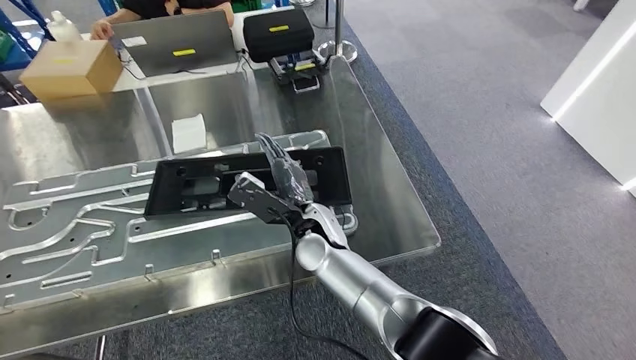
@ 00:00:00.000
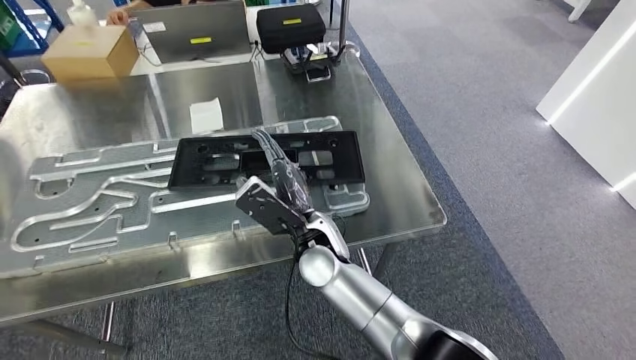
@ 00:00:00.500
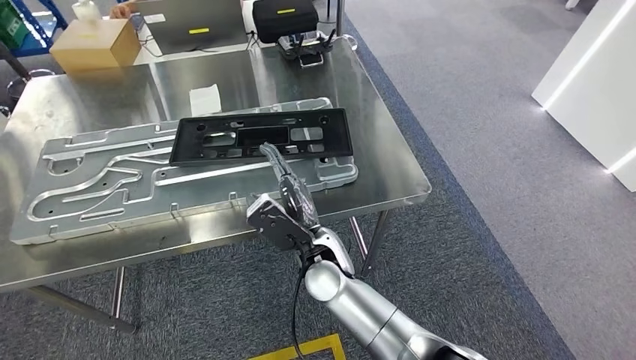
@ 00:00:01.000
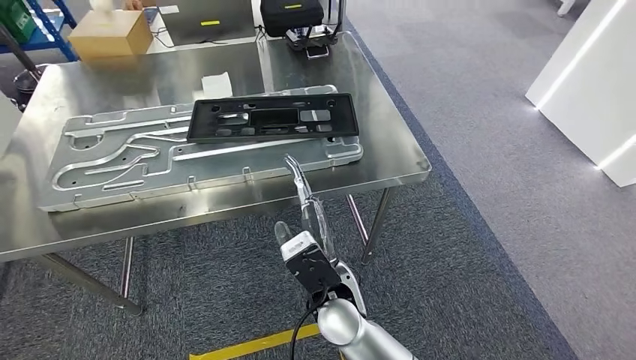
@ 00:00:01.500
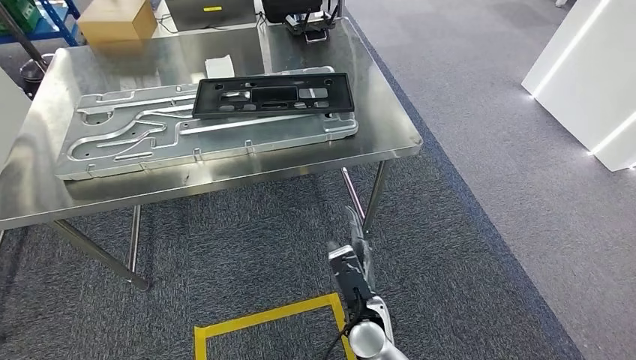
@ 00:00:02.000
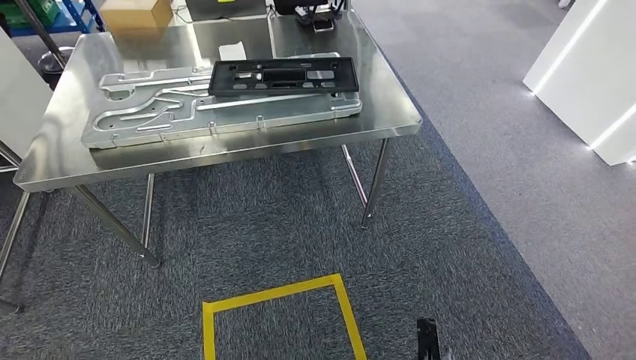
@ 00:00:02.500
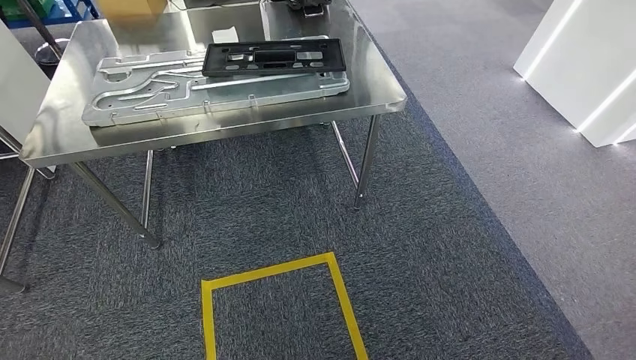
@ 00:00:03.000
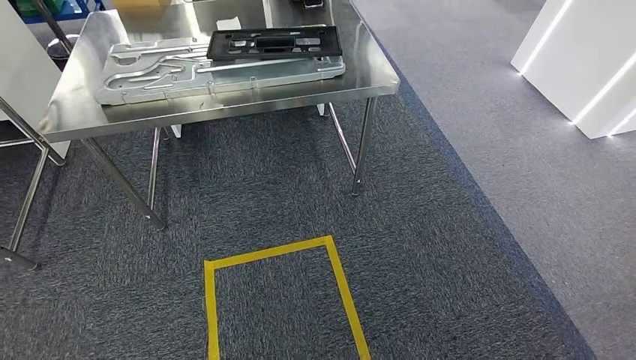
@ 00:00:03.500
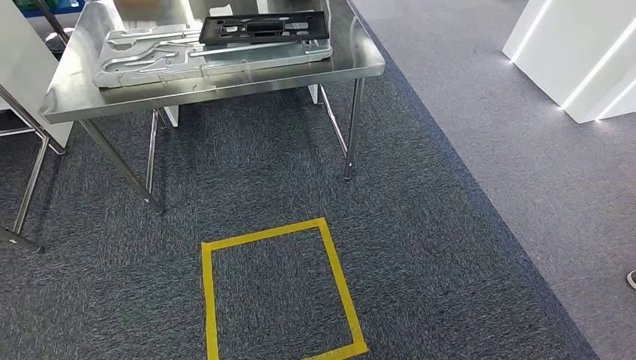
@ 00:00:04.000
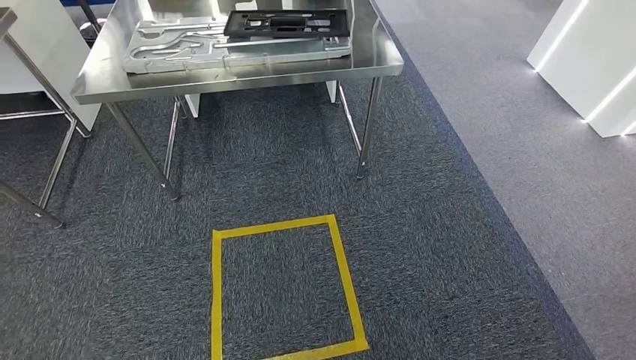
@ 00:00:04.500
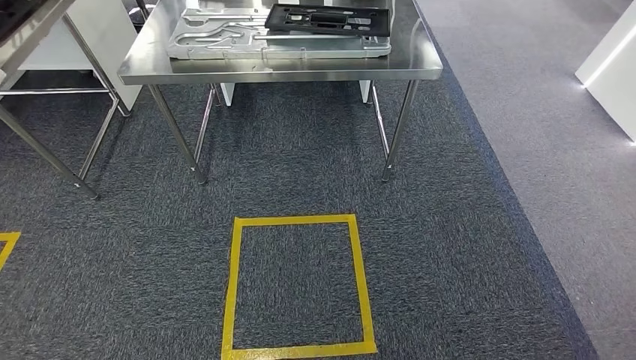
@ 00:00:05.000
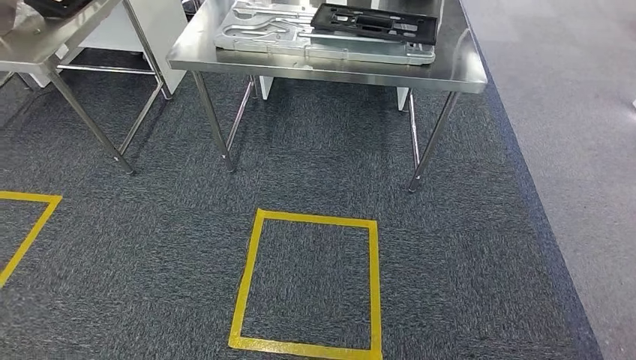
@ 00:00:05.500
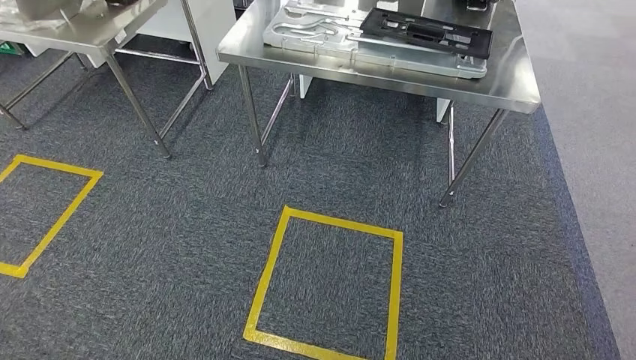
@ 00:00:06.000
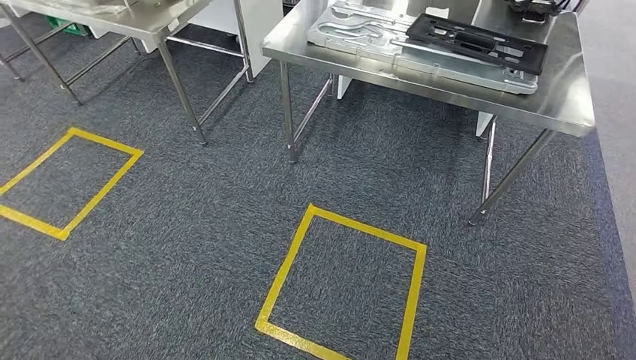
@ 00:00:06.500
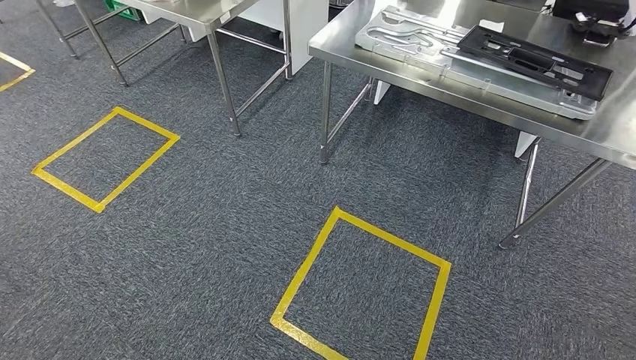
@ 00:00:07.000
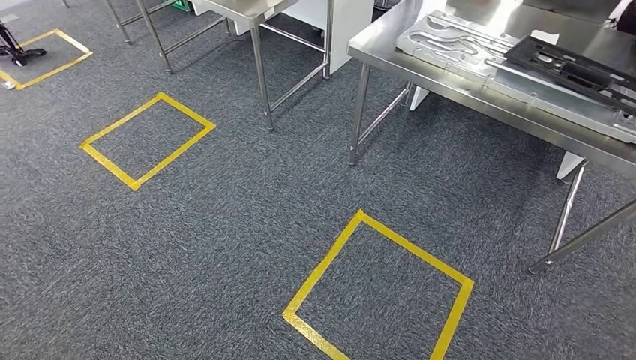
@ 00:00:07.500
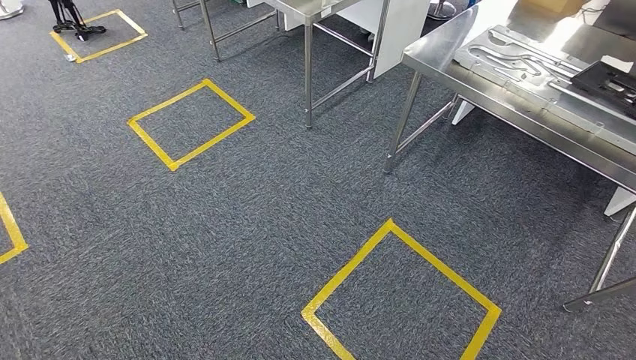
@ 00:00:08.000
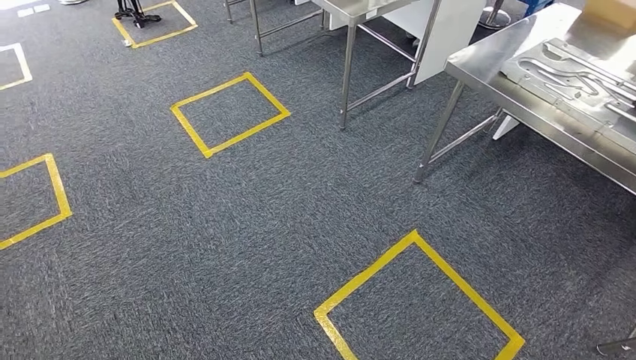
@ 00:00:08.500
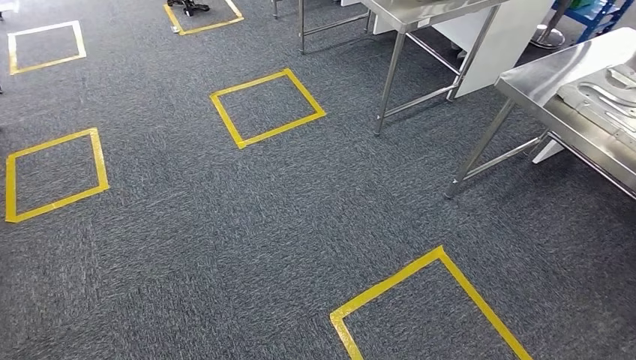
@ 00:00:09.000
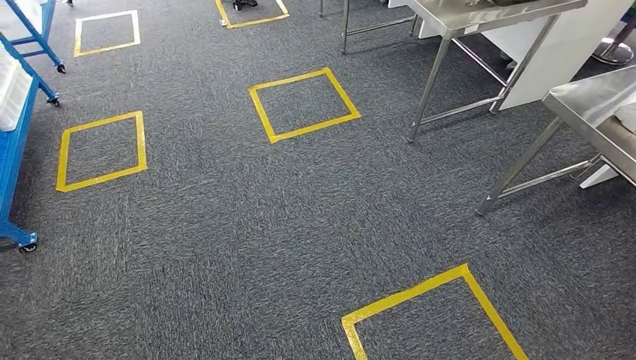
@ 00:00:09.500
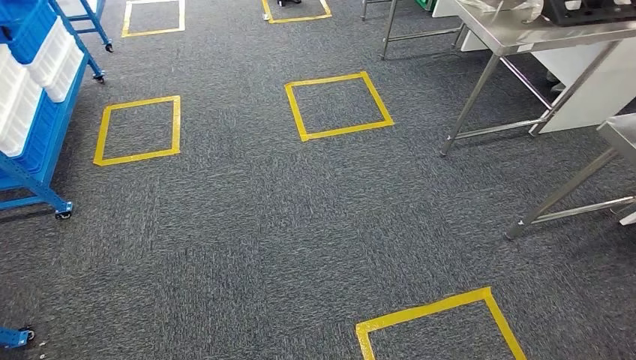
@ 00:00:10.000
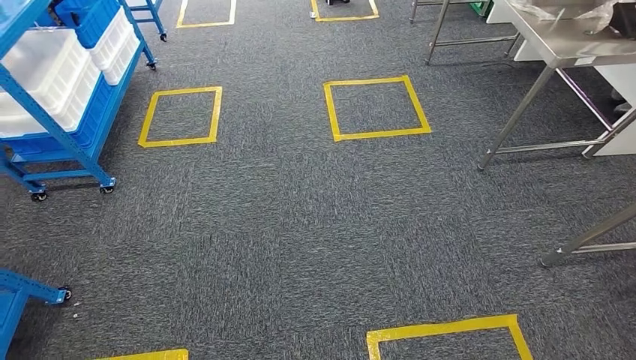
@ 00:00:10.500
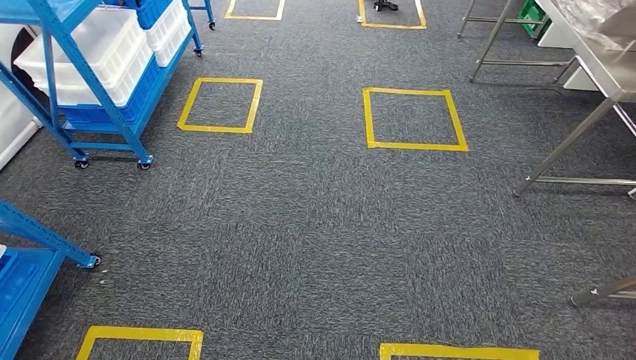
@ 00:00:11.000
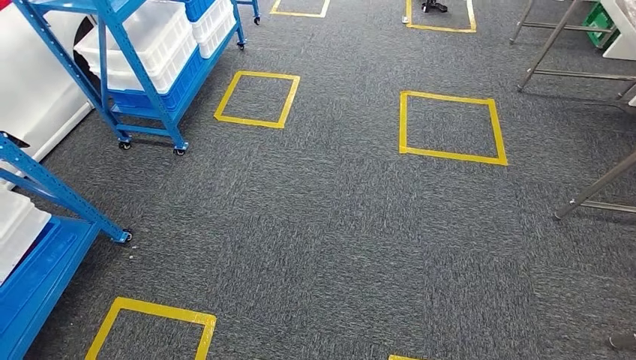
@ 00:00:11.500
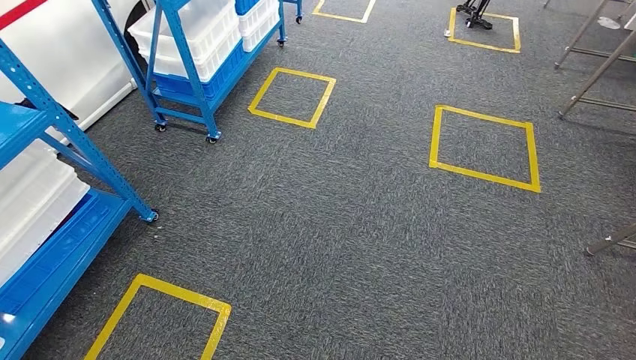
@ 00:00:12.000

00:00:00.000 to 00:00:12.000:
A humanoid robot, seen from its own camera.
Step, 00:00:00.000 to 00:00:02.500: Insert the large material into the corresponding slot on the workbench.

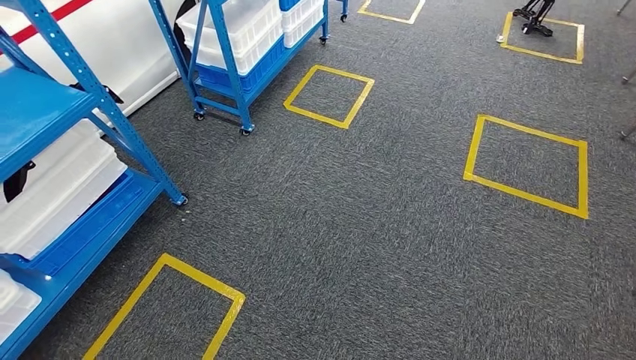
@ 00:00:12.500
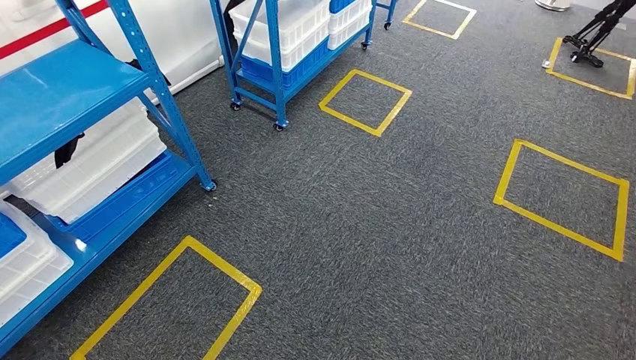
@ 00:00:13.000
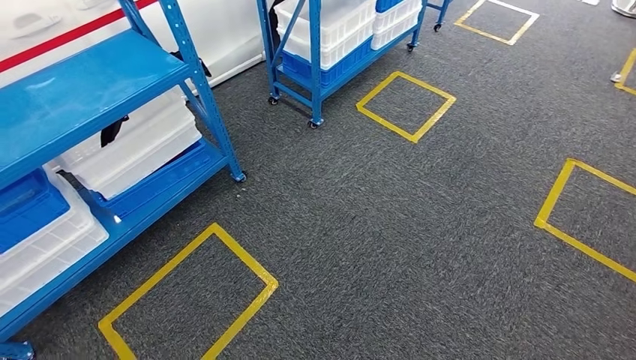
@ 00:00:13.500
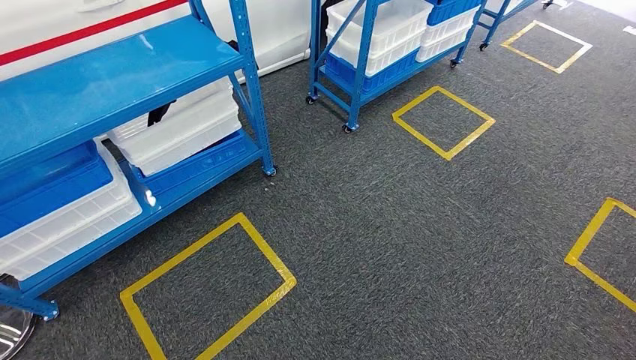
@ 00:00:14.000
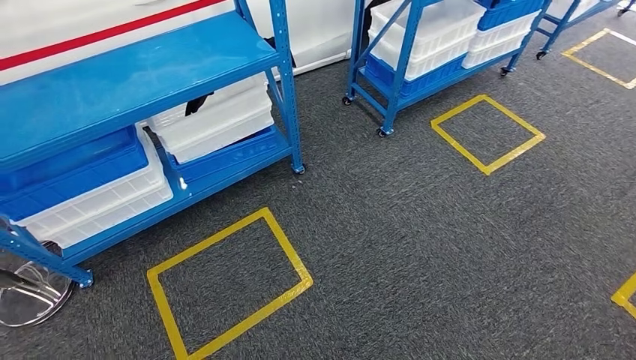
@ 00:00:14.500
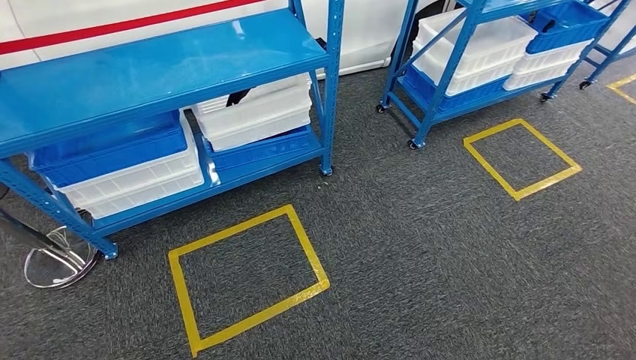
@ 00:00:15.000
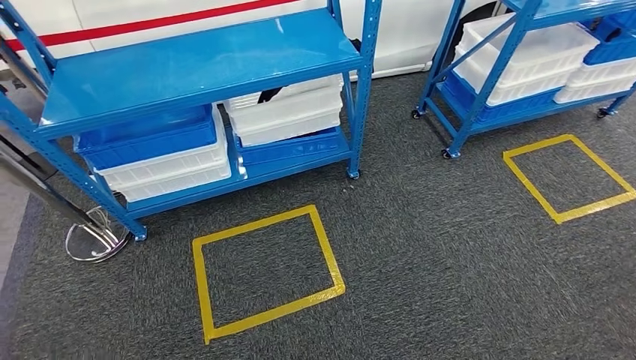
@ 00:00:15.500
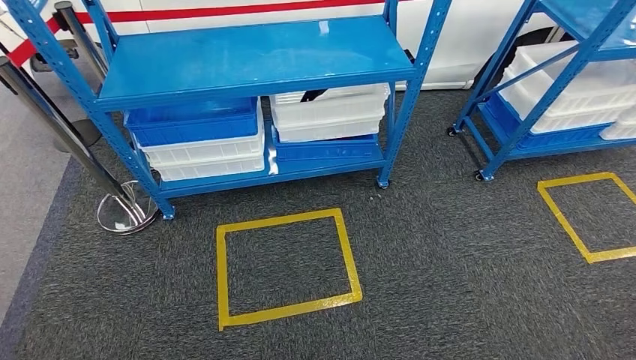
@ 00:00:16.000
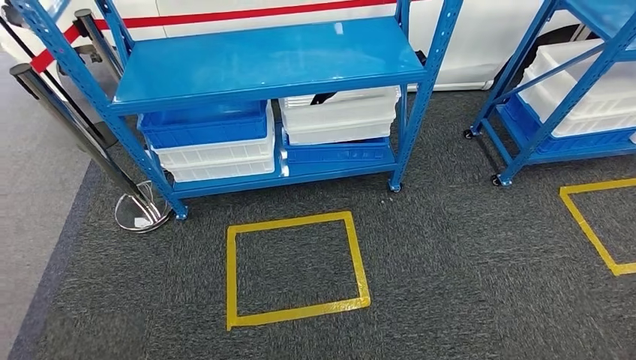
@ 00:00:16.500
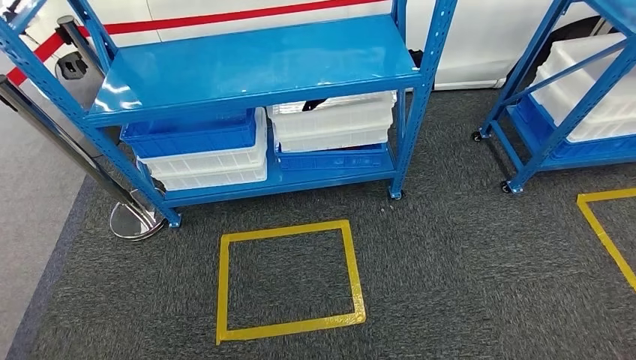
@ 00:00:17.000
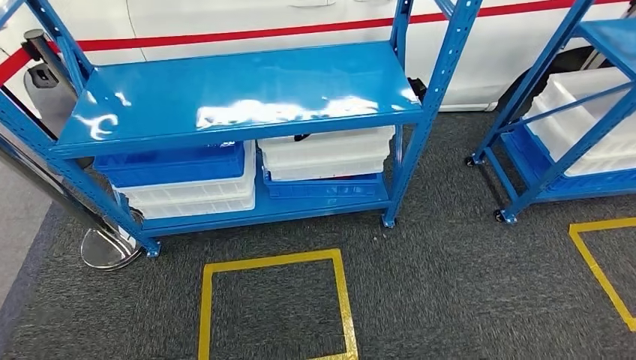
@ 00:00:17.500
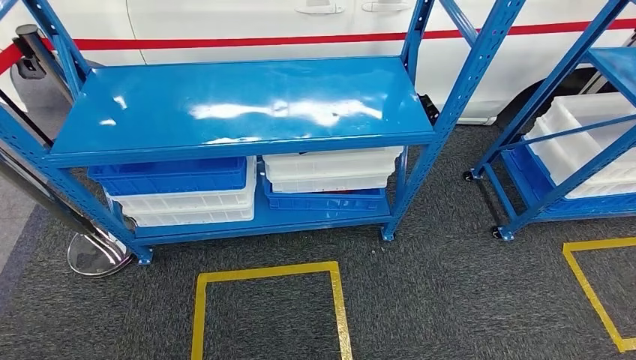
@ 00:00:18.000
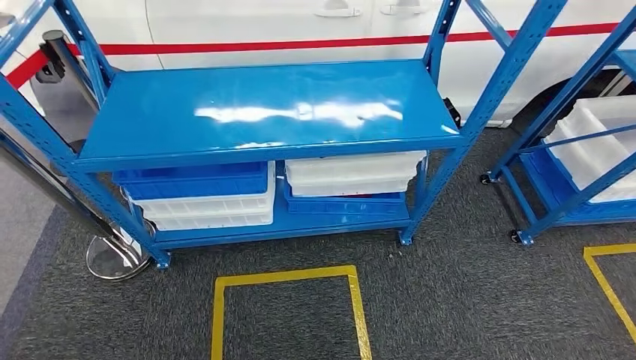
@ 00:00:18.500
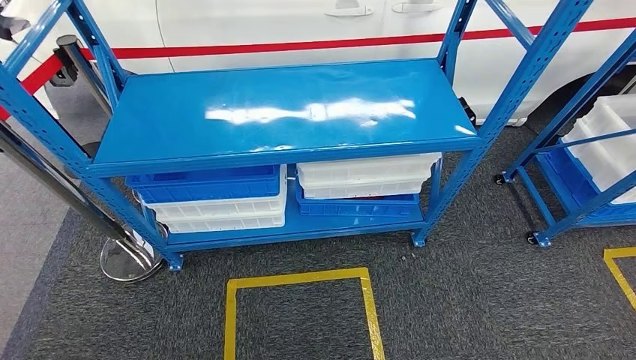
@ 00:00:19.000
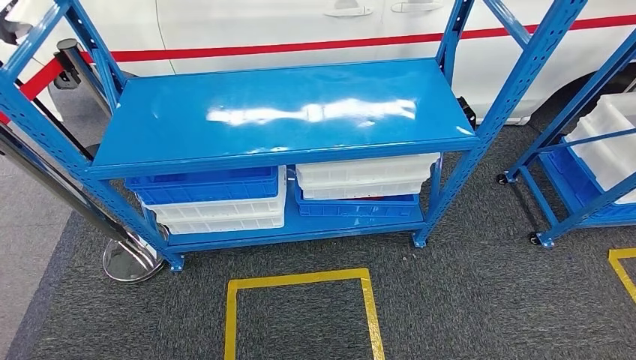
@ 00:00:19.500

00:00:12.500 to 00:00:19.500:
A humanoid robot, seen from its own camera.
Step, 00:00:12.500 to 00:00:19.500: Move to the initial position of the shelf.
